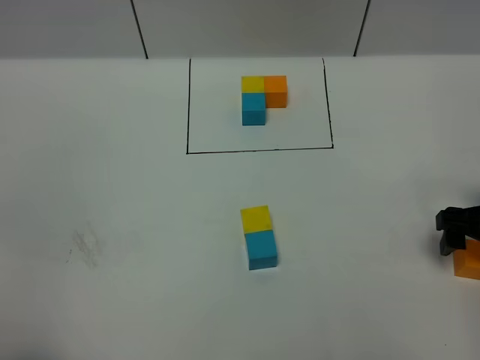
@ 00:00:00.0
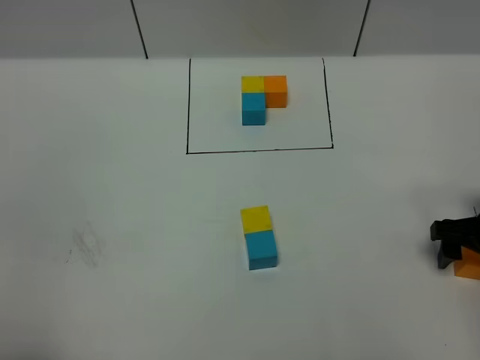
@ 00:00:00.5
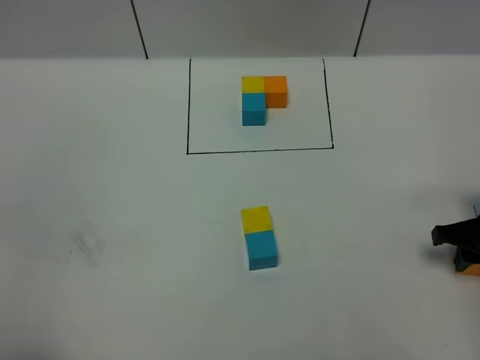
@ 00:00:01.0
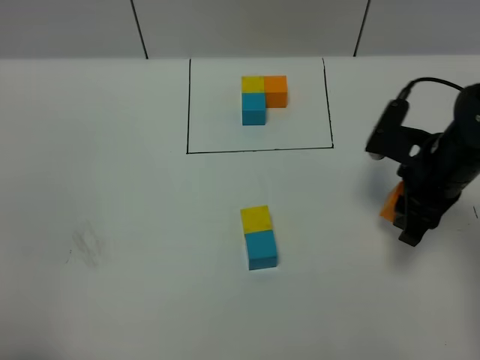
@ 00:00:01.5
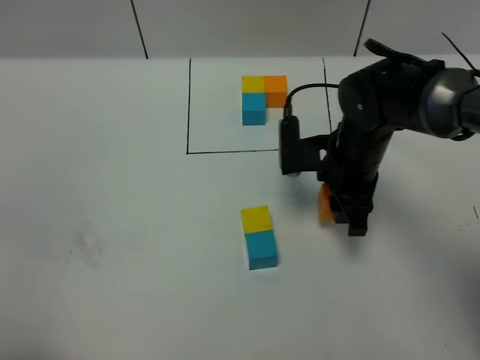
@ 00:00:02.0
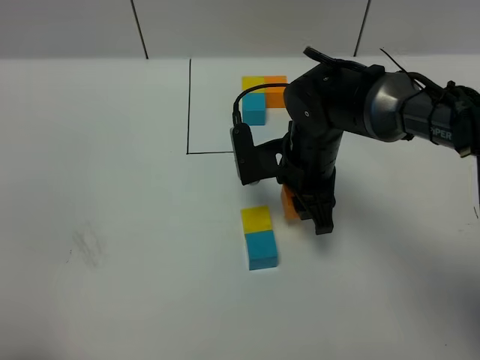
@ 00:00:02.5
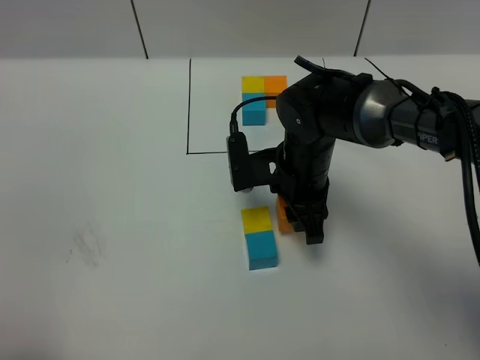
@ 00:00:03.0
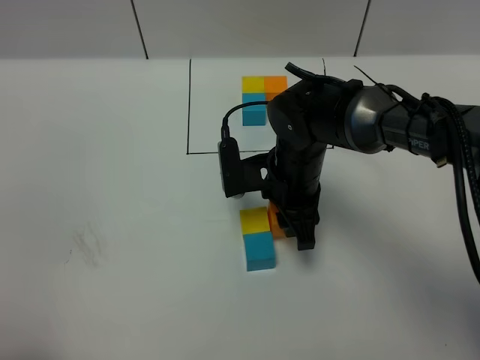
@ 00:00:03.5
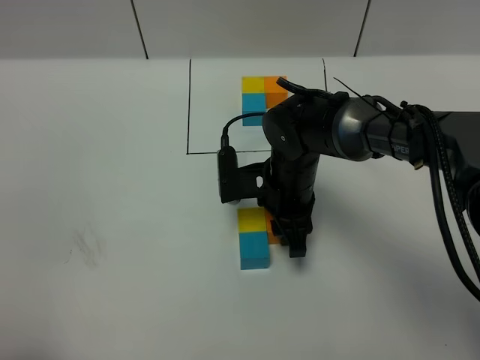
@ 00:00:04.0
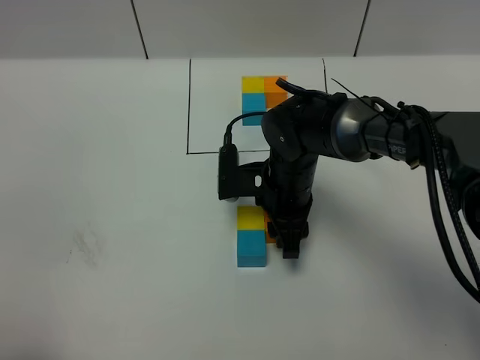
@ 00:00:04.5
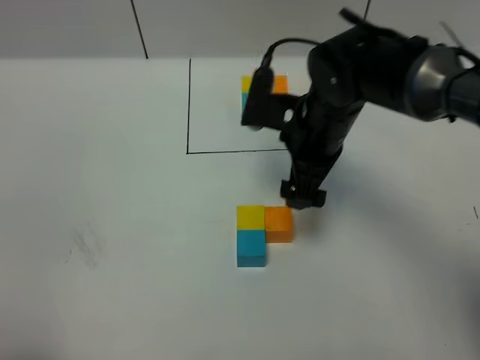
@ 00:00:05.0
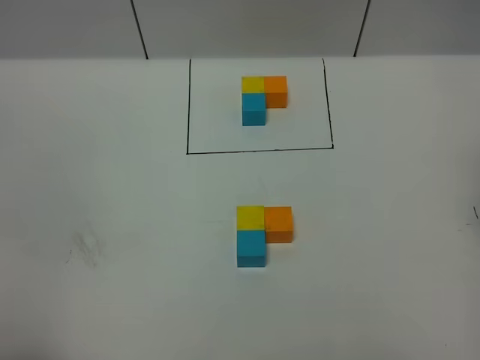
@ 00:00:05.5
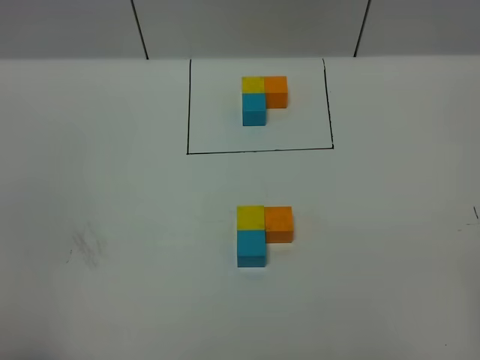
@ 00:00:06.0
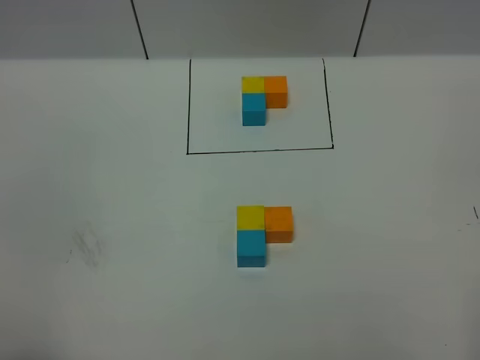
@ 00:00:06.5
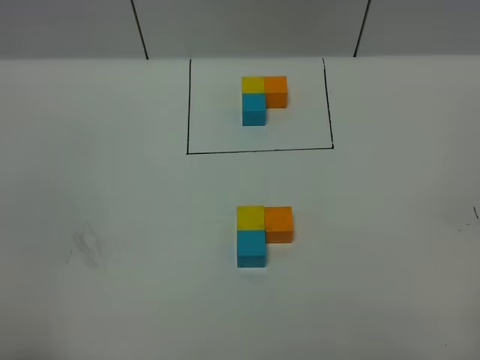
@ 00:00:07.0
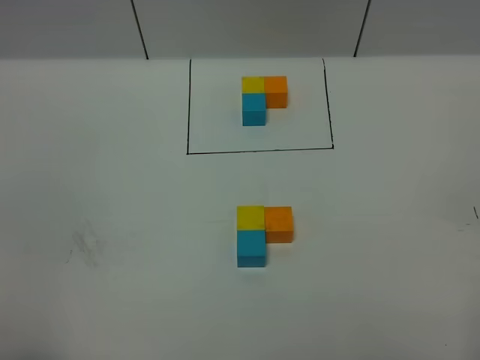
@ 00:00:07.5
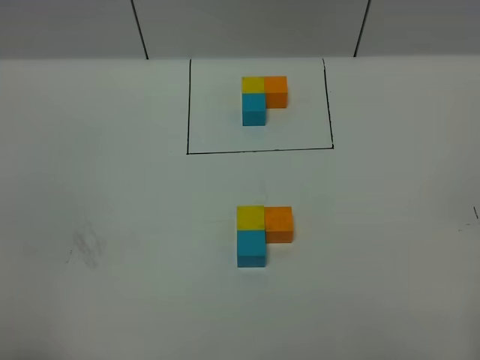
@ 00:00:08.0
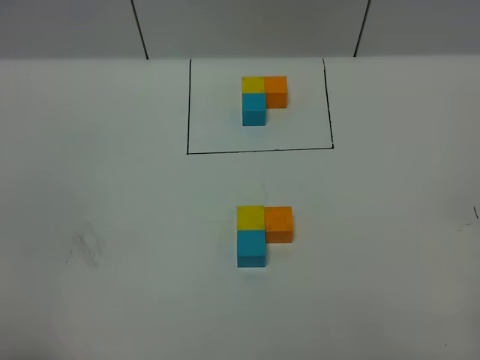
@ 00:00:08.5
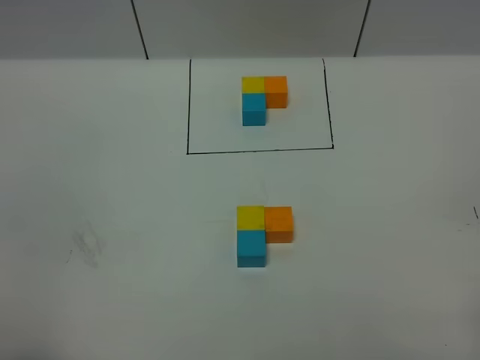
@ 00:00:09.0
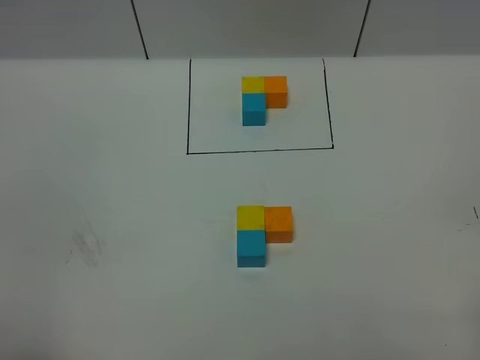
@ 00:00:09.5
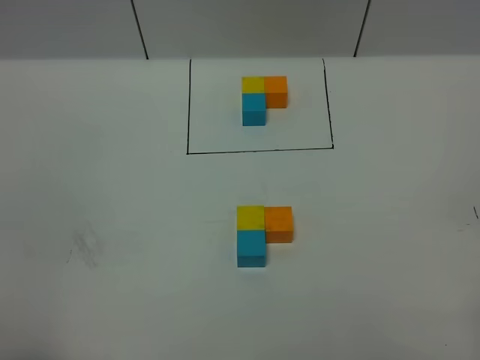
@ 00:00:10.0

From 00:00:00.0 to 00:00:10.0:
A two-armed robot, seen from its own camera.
Task of the whole recording: According to the building block template in front, assemble the scattered blocks together.
Step, from 00:00:00.0 to 00:00:05.0: Put the orange cube on the right of the yellow cube.
From 00:00:00.0 to 00:00:02.0: The right gripper travels to the left and forward by some 20 cm, and closes its fingers.
From 00:00:02.0 to 00:00:04.0: The right gripper moves to the left, roughly 5 cm.
From 00:00:04.0 to 00:00:06.0: The right gripper heads backward, upward and to the right, covering roughly 50 cm, and opens up.
